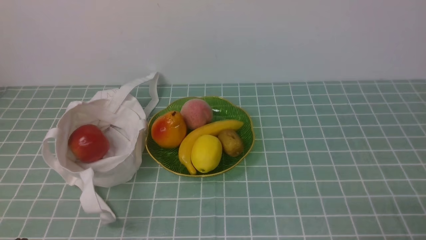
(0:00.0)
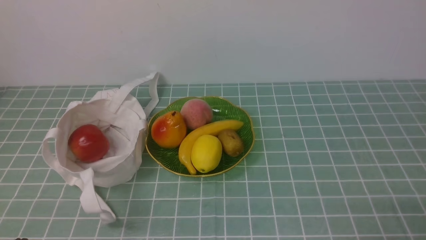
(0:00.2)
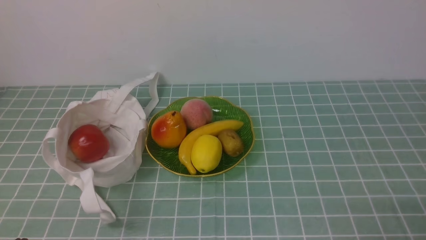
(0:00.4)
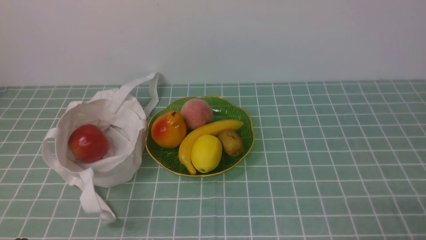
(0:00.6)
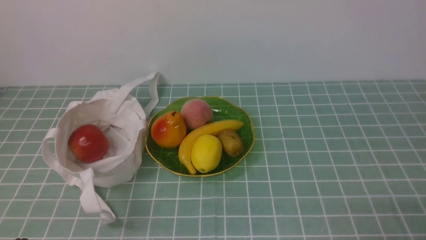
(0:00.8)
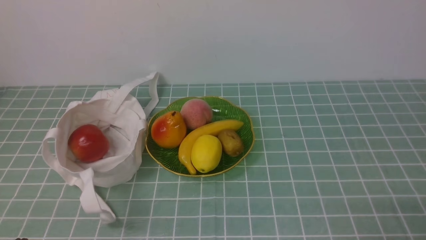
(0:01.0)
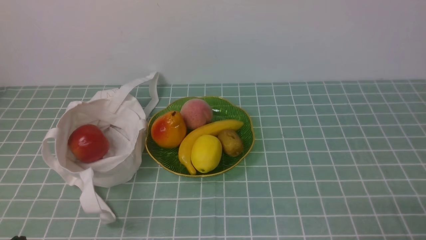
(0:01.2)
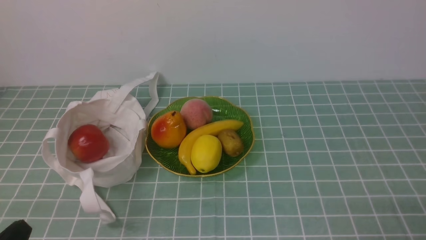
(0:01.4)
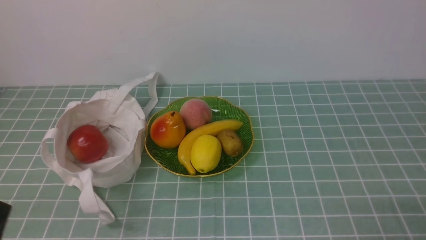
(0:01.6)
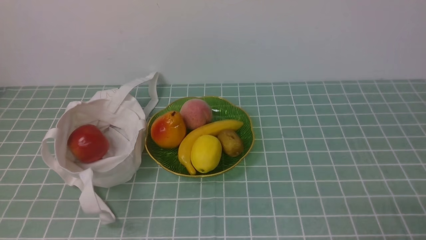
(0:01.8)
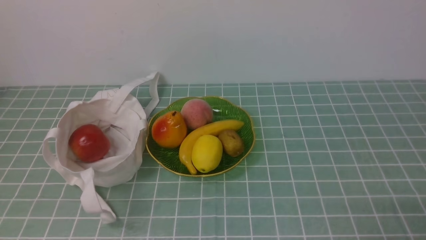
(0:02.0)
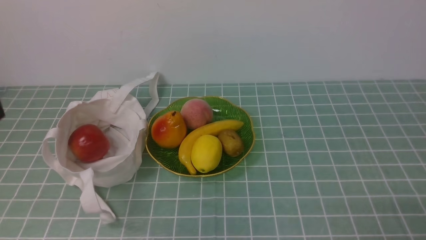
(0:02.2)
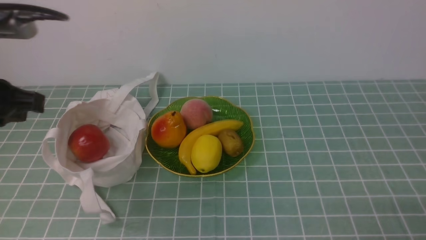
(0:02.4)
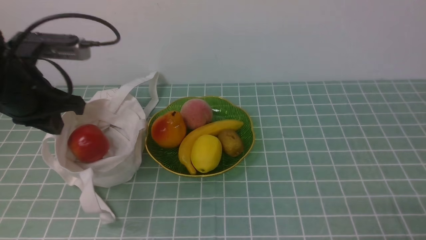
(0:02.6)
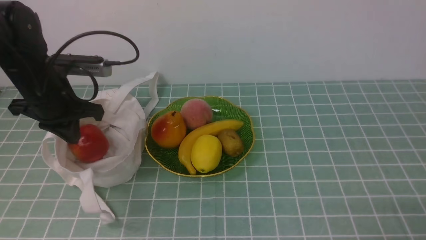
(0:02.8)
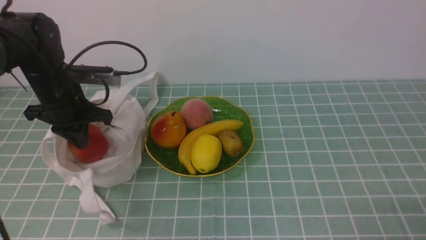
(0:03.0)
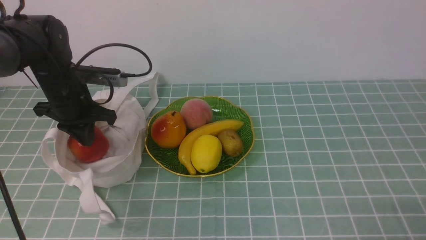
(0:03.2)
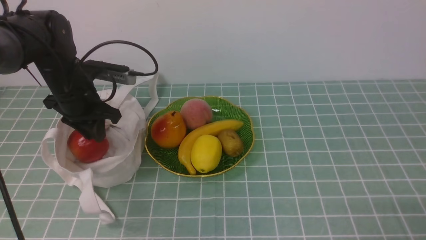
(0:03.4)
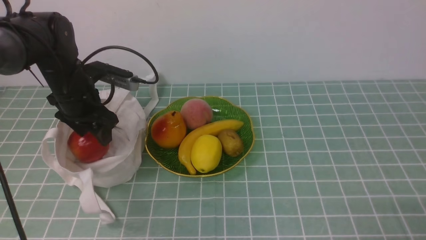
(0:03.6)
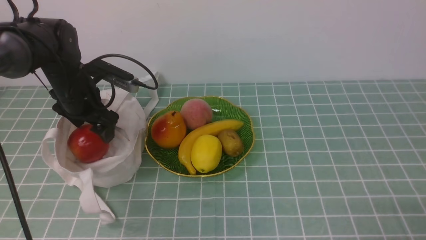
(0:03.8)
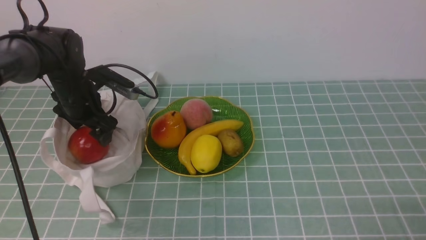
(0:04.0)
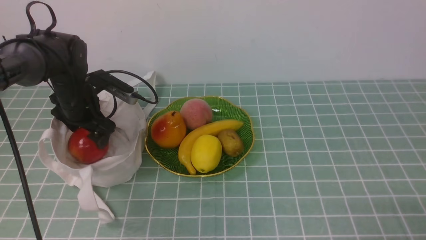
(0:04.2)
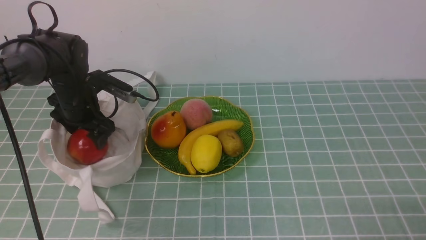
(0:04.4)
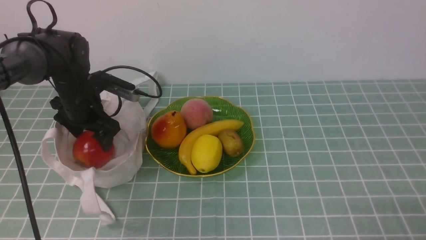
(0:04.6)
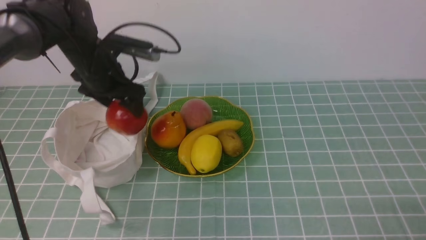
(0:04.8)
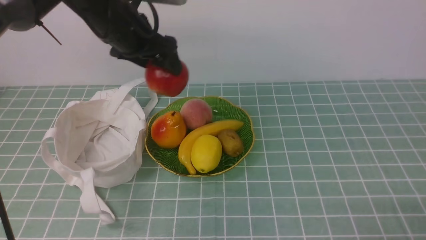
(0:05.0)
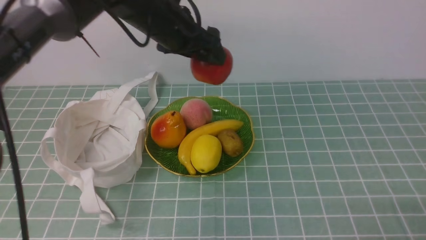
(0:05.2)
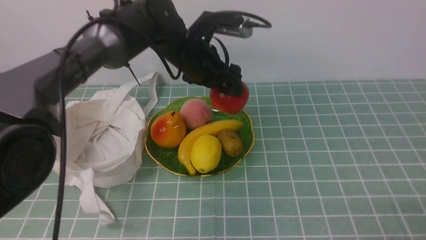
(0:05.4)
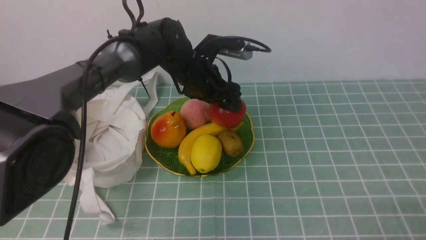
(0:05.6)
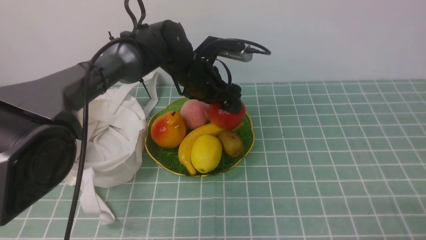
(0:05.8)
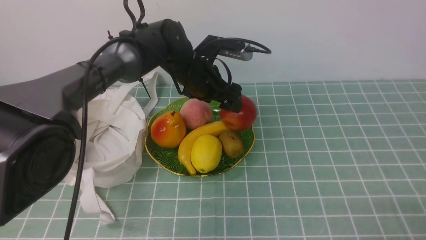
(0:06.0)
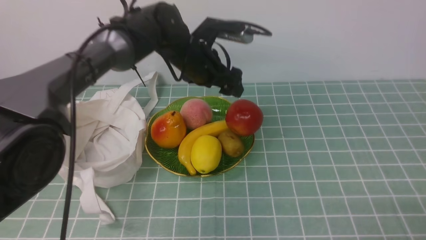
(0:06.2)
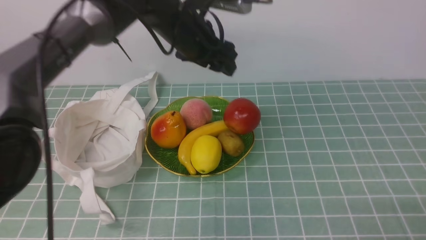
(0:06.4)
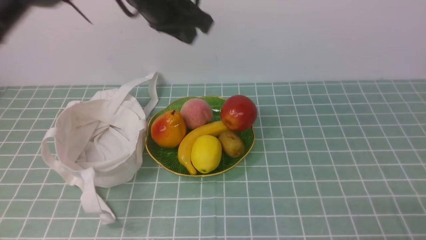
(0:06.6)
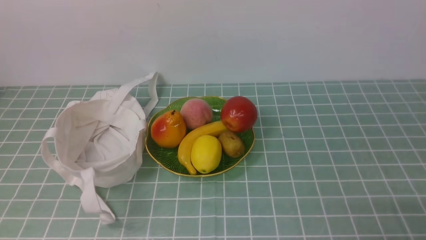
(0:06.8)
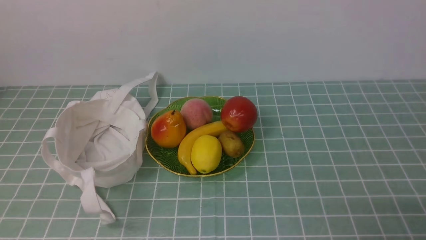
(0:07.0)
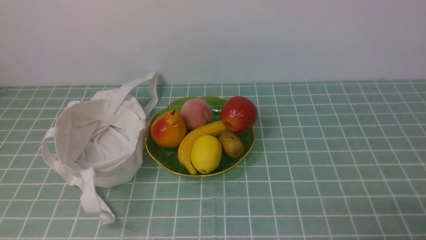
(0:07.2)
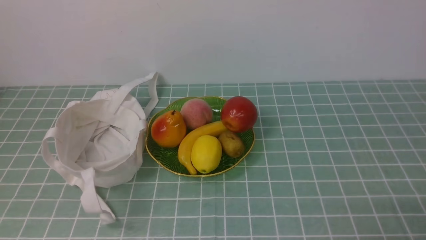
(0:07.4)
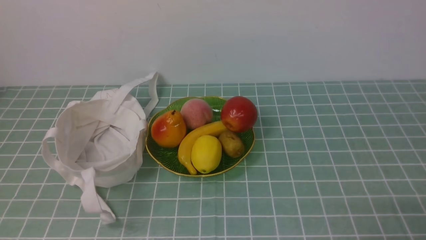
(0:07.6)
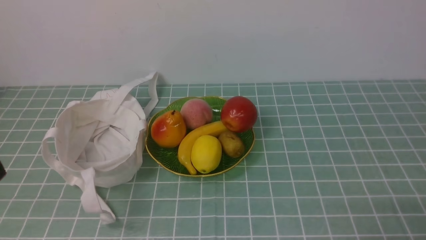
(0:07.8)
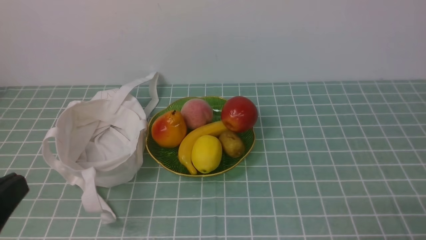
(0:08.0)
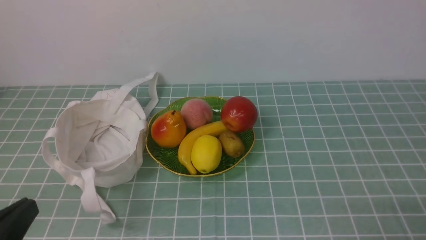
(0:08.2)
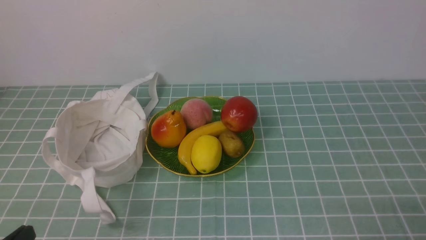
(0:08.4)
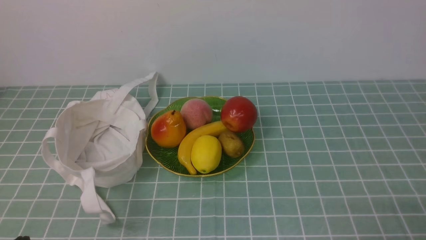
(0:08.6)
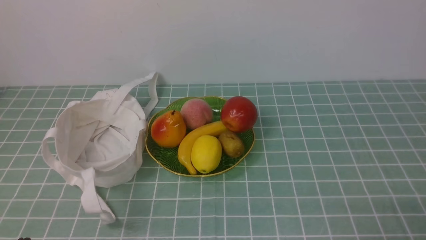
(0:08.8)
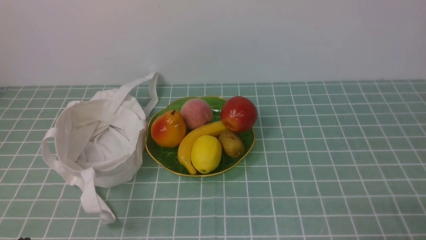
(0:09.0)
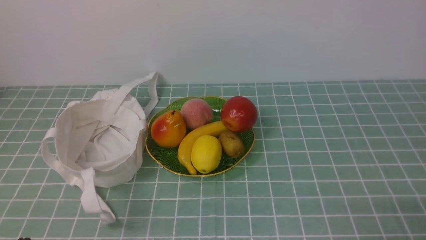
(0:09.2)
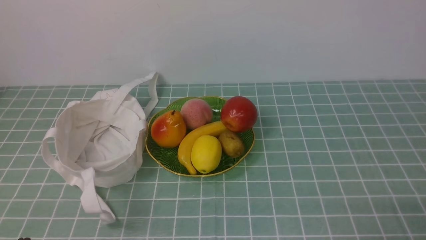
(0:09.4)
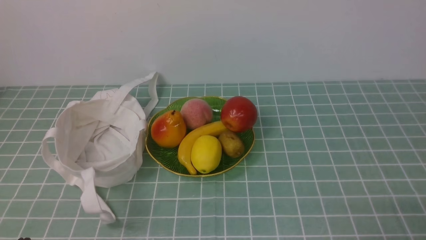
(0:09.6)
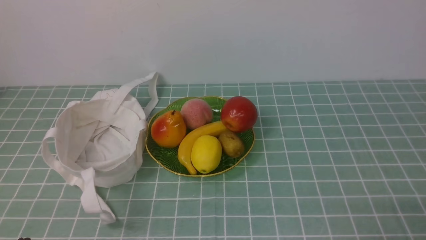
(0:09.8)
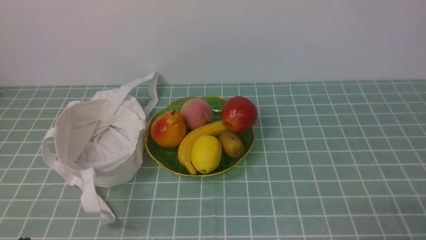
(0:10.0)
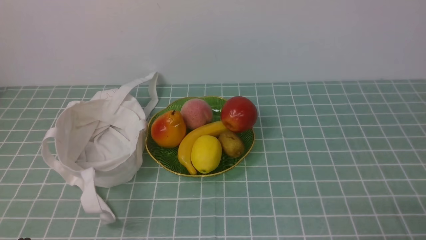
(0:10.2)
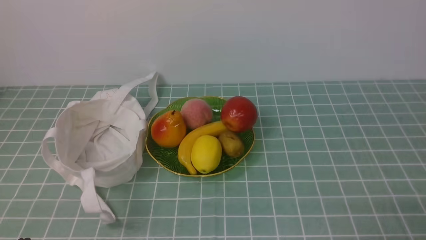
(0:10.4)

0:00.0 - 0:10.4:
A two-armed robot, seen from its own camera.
Step, 0:00.0 - 0:04.6: use the left arm to grab an apple from the bag.
Step, 0:04.8 - 0:06.0: use the left arm to put the apple into the empty plate on the right.
0:01.4 - 0:03.0: The left gripper heads forward, covering some 30 cm.
0:03.0 - 0:04.4: The left gripper shifts approximately 10 cm downward and forward, and opens up.
0:04.4 - 0:06.0: The left gripper is displaced to the right by approximately 20 cm.
0:06.0 - 0:07.4: The left gripper travels backward, upward and to the left by some 50 cm, and closes.
0:09.0 - 0:10.4: Both grippers stay put.
